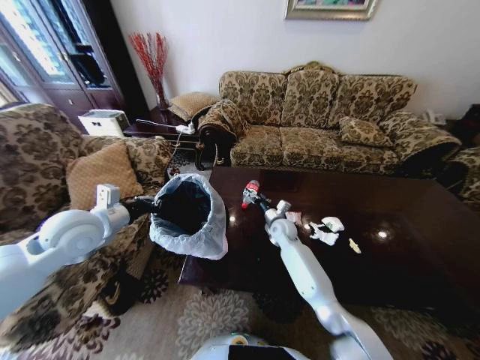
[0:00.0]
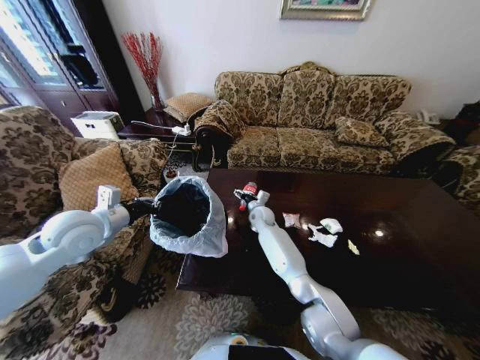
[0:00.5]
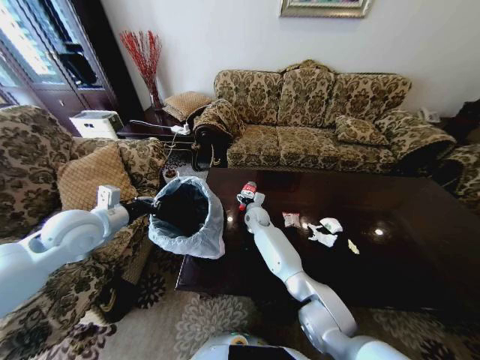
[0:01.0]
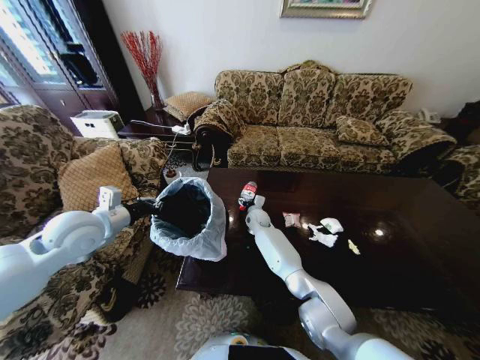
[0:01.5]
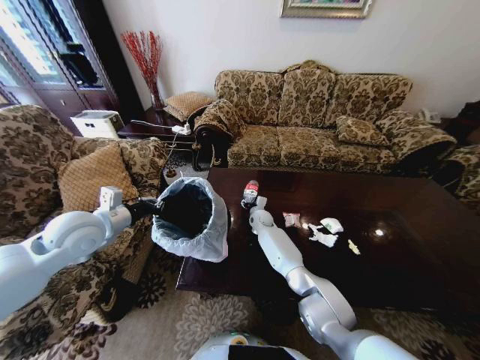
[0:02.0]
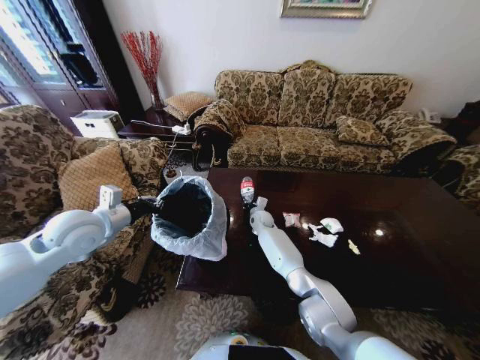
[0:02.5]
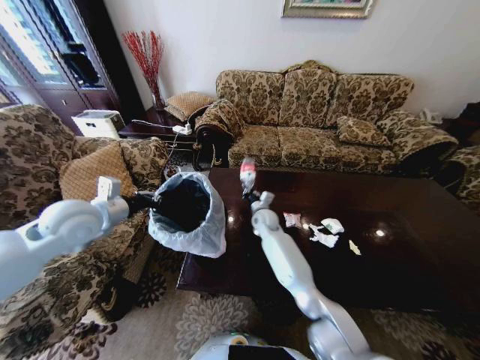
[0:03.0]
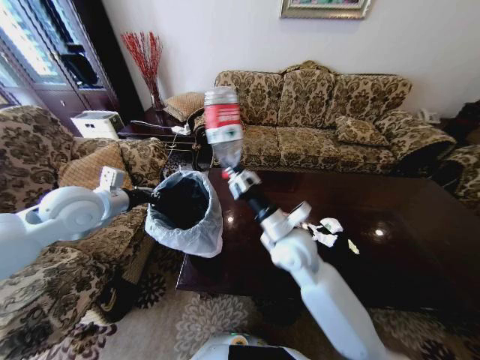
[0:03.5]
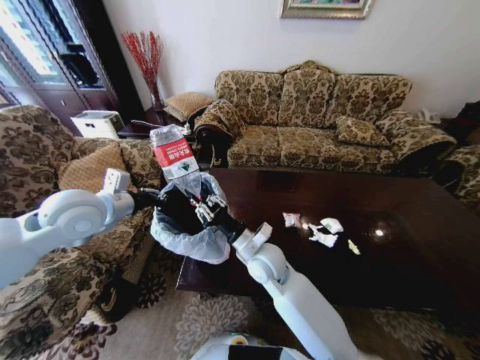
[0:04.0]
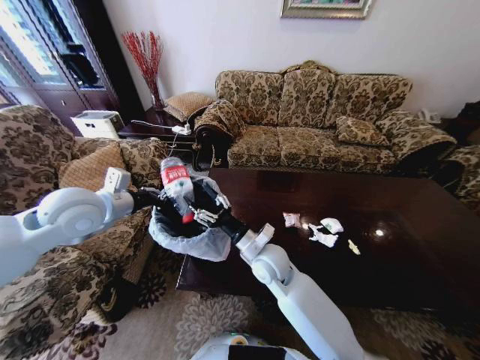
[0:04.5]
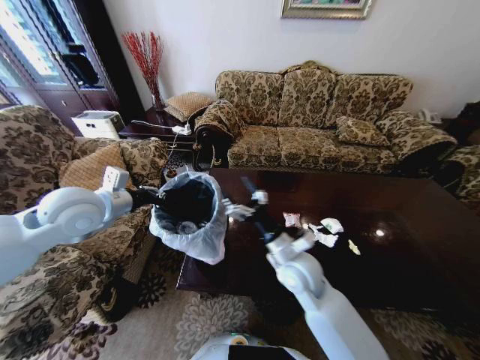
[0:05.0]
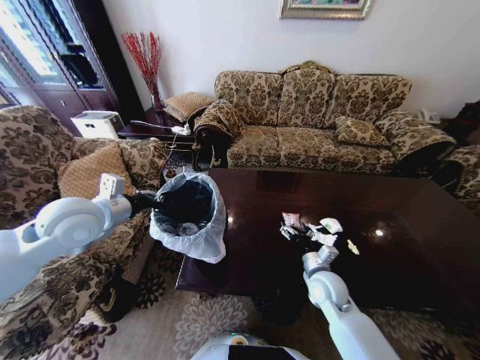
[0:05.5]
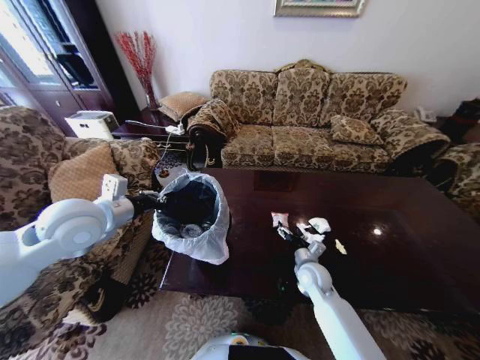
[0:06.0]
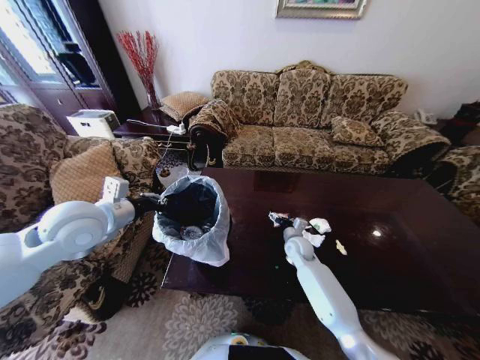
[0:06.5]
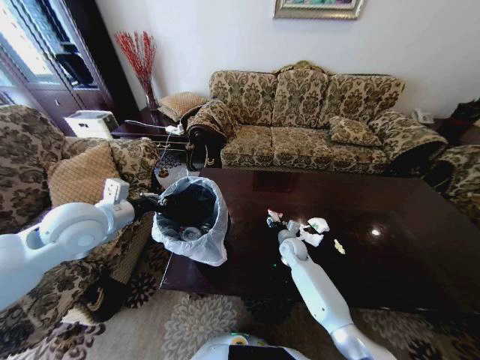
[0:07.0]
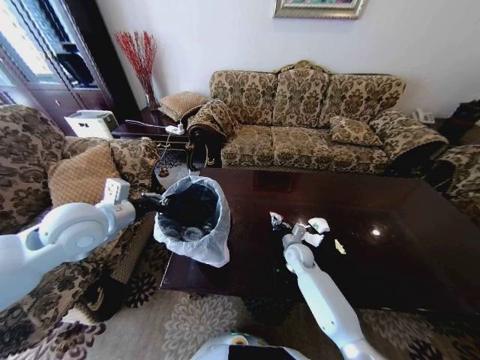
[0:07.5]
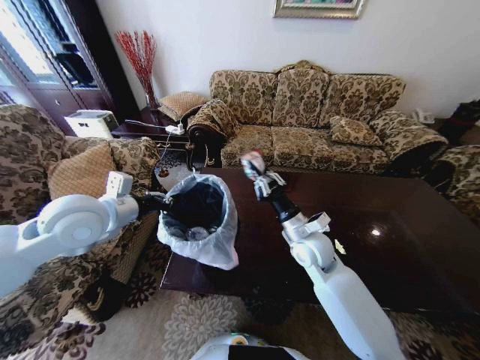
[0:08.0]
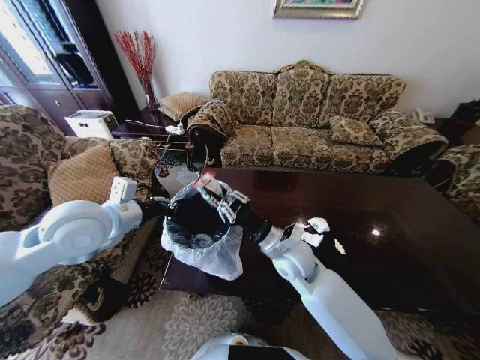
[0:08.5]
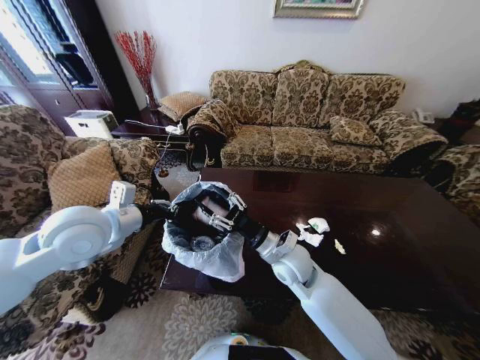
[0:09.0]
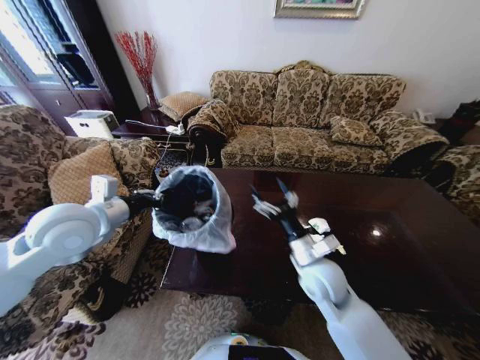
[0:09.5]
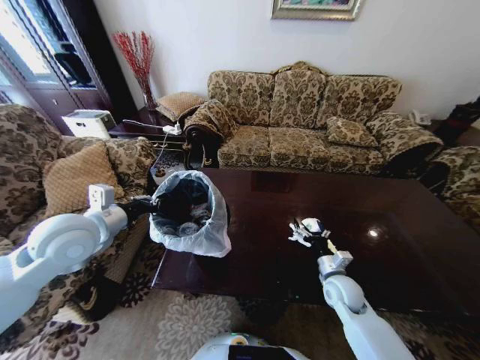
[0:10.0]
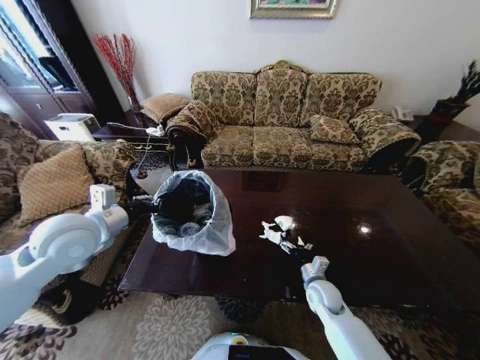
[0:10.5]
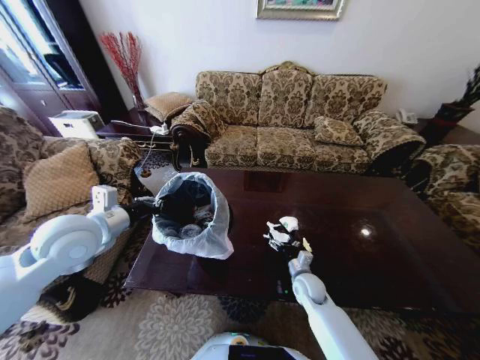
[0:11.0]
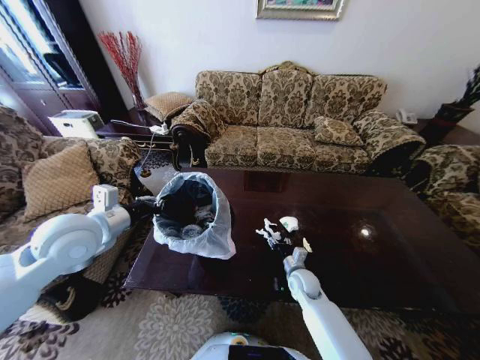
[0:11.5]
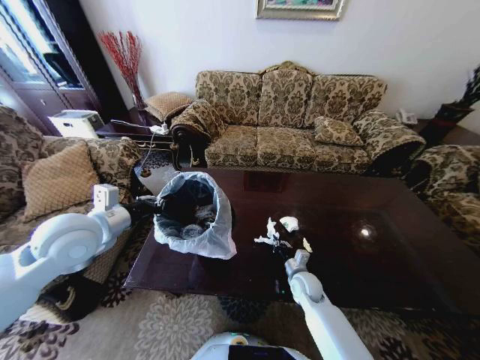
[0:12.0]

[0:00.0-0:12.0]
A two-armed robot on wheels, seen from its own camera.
Task of the whole recording: Move to the front of the table and place the trash on the table into the trash bin.
0:00.0 to 0:02.0: The right gripper heads forward and to the left, covering approximately 10 cm.
0:02.0 to 0:04.0: The right gripper travels backward and upward by roughly 30 cm, and closes. The left gripper goes roughly 5 cm upward.
0:04.0 to 0:06.0: The right gripper shifts about 20 cm to the right and downward, and opens its fingers.
0:06.0 to 0:08.0: The right gripper heads upward, covering about 15 cm, and closes its fingers.
0:08.0 to 0:10.0: The right gripper heads downward and to the right, covering roughly 20 cm, and opens up.
0:10.0 to 0:12.0: The right gripper is displaced to the left and downward by about 10 cm, and closes.

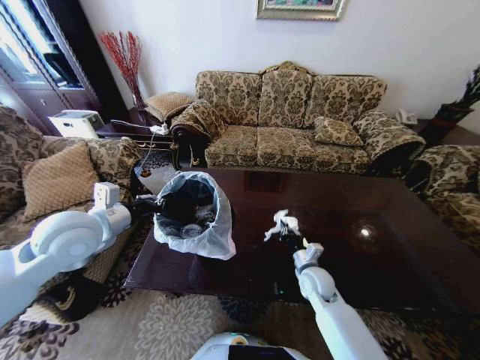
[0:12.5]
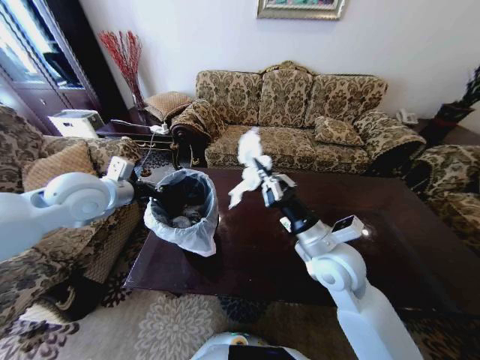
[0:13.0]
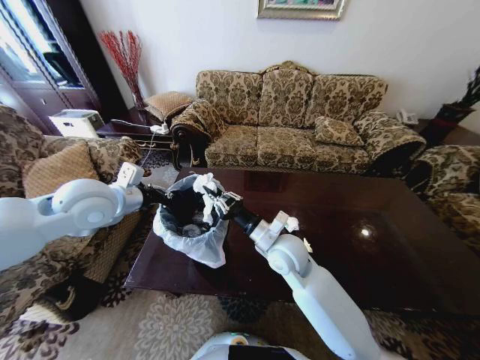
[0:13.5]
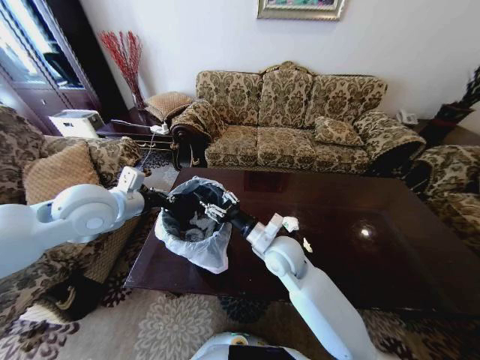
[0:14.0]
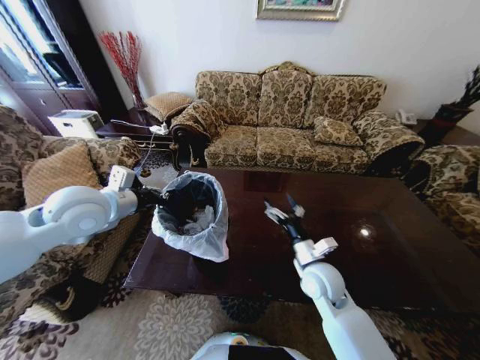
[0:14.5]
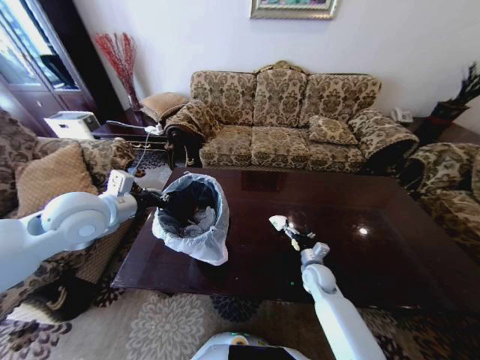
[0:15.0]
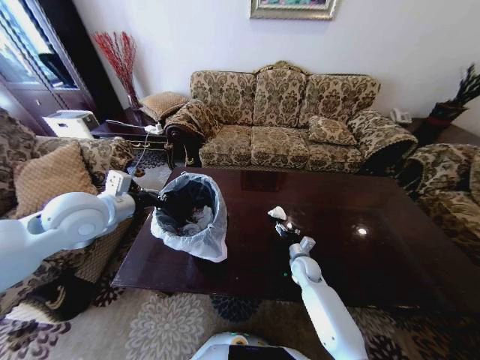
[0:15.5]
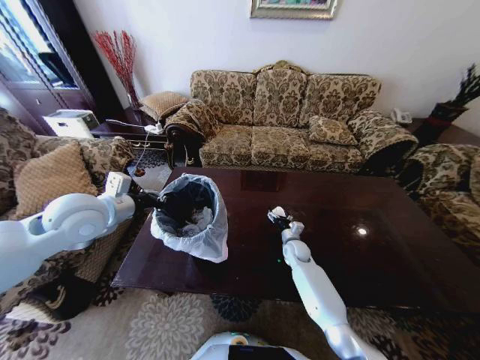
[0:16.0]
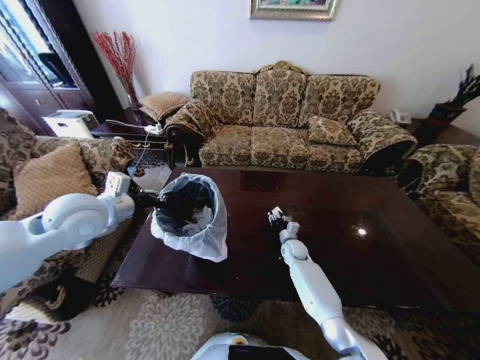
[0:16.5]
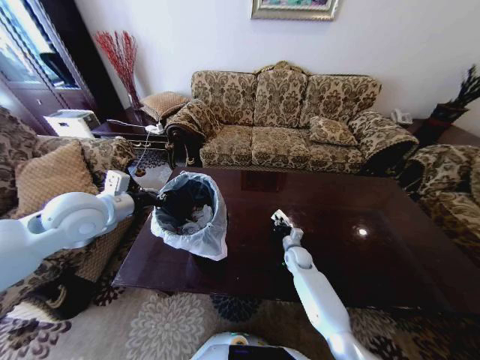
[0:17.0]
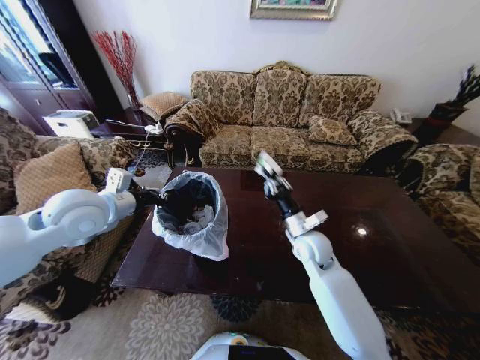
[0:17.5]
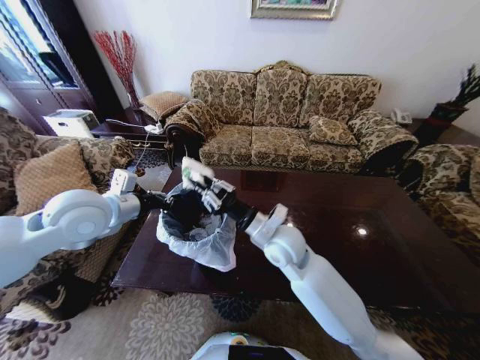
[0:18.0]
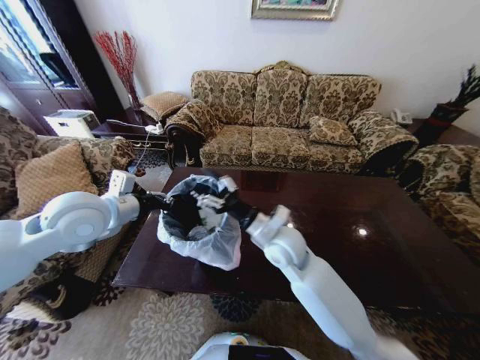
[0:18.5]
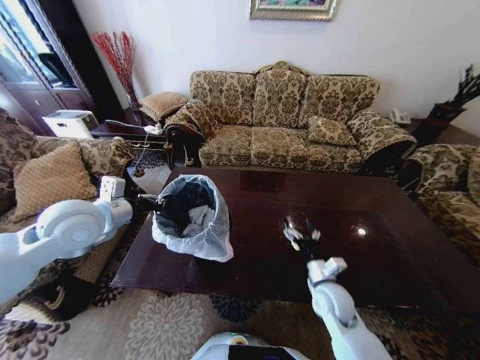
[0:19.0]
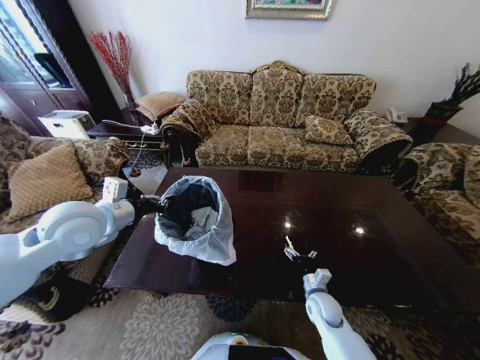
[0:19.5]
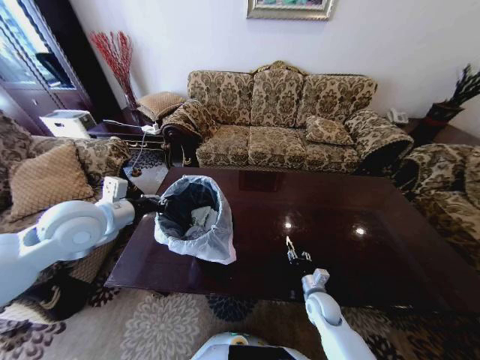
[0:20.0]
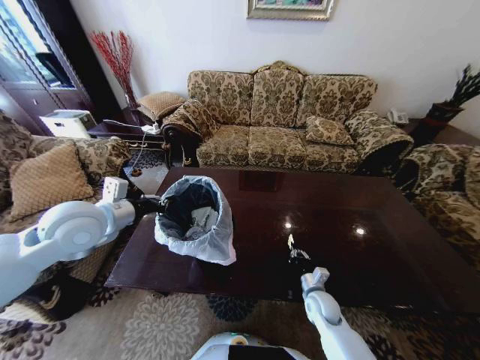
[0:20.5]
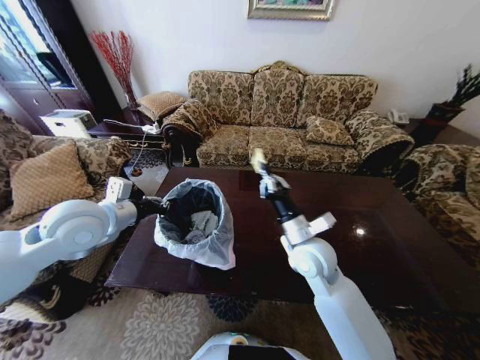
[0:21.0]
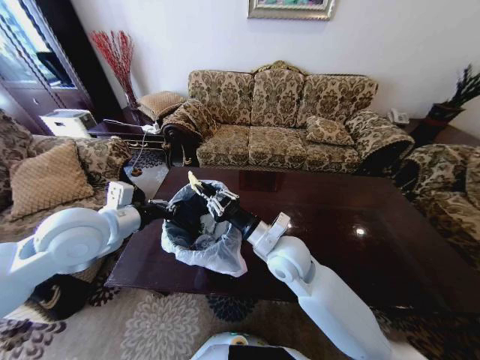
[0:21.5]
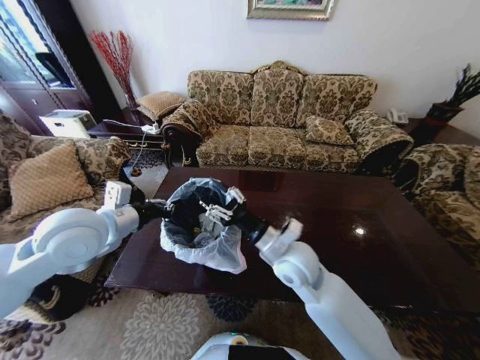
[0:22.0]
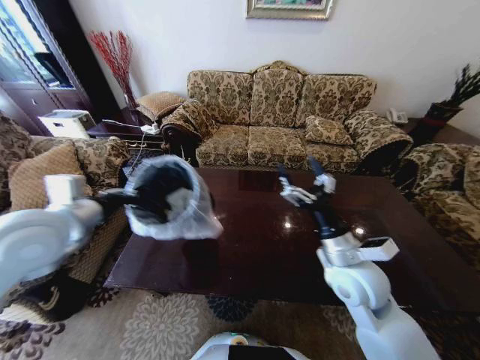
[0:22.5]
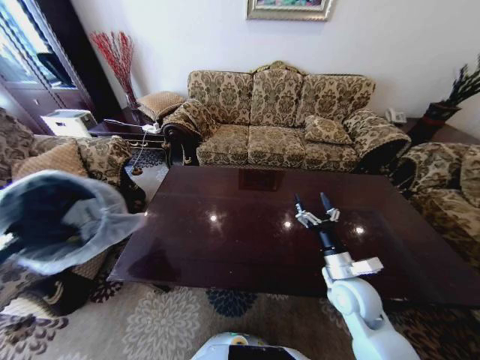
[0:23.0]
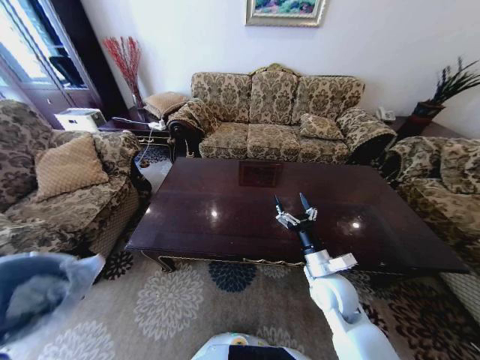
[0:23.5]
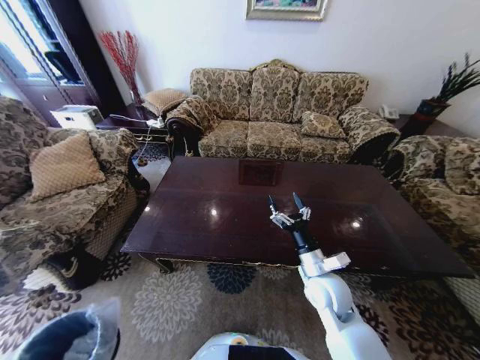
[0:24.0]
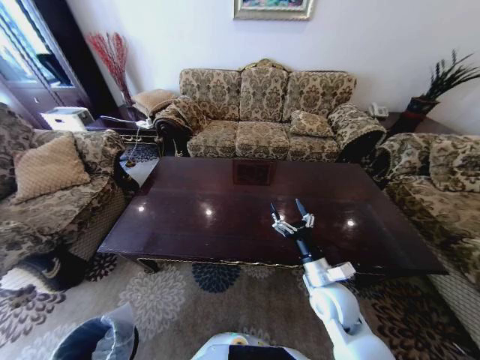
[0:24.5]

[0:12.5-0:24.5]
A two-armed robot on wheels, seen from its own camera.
Task of the whole recording: Move to the front of the table and place the trash on the table into the trash bin.
0:12.5 to 0:14.5: The right gripper goes about 10 cm upward, and opens its fingers.
0:14.5 to 0:16.5: The right gripper goes roughly 25 cm forward and downward, and closes its fingers.
0:16.5 to 0:18.5: The right gripper heads upward, to the left and backward, covering roughly 30 cm, and closes, then reopens.
0:18.5 to 0:20.5: The right gripper heads downward and to the right, covering about 30 cm, and closes.
0:20.5 to 0:22.5: The right gripper is displaced upward by about 25 cm, and opens up. The left gripper changes place by roughly 5 cm.
0:22.5 to 0:24.5: The right gripper moves downward, roughly 10 cm; the left gripper heads downward, covering approximately 50 cm.

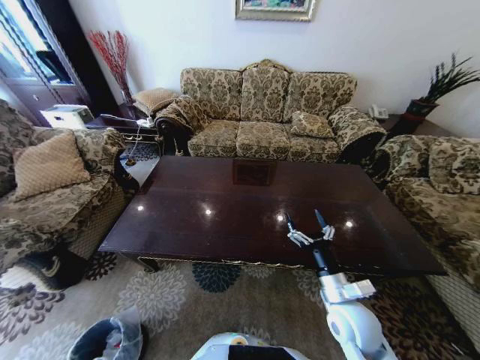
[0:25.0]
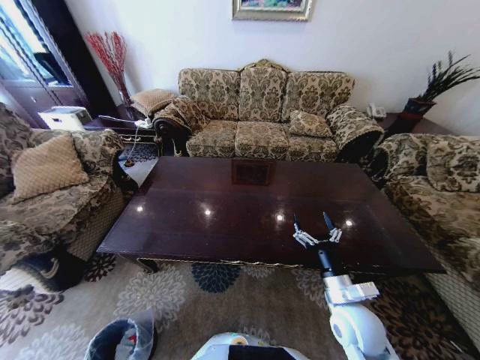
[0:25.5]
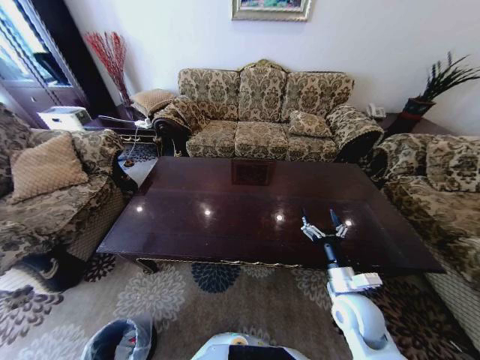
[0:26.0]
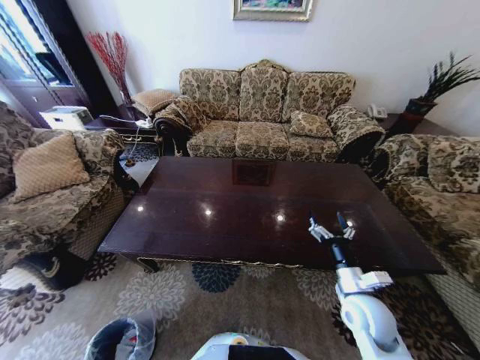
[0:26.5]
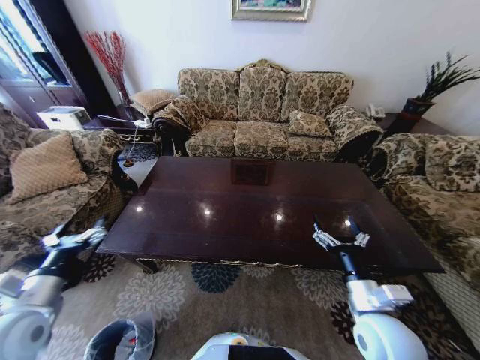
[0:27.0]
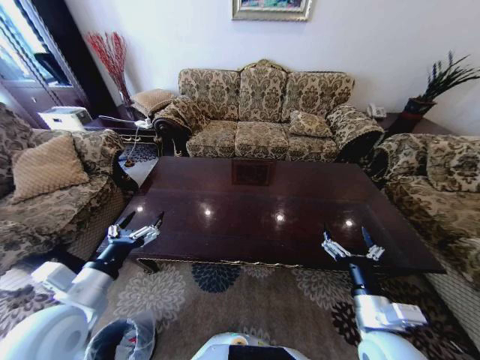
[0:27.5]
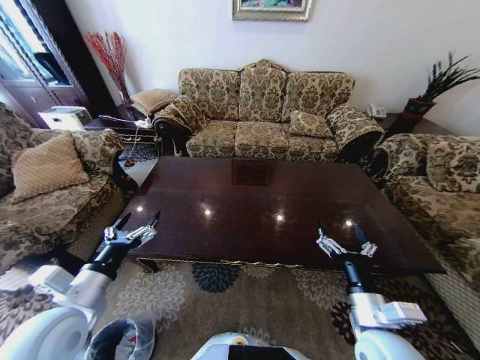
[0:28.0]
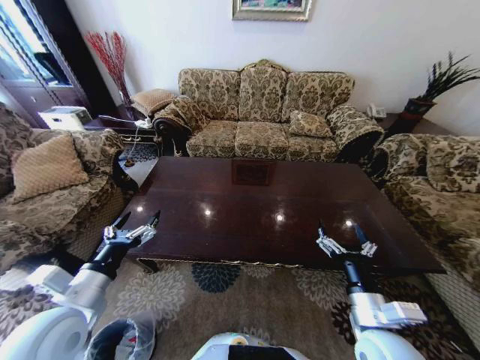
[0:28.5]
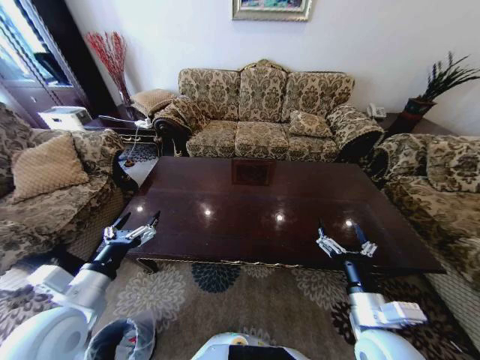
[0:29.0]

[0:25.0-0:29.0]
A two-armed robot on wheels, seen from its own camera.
Task of the whole recording: Move to the front of the table and place the trash on the table into the trash bin.
0:25.0 to 0:27.0: The right gripper moves approximately 5 cm, while the left gripper moves upward, about 40 cm, and opens.
0:27.0 to 0:29.0: The left gripper moves to the right, about 10 cm.
